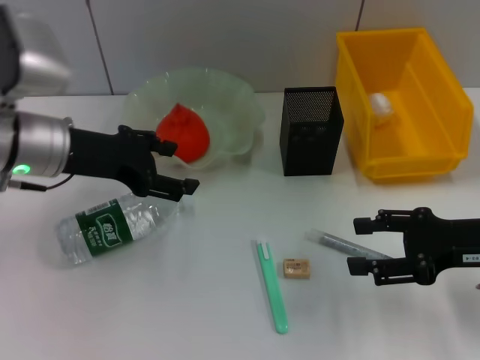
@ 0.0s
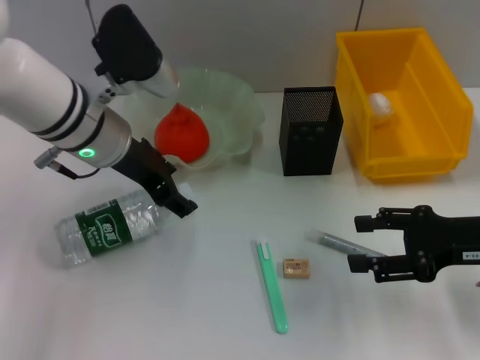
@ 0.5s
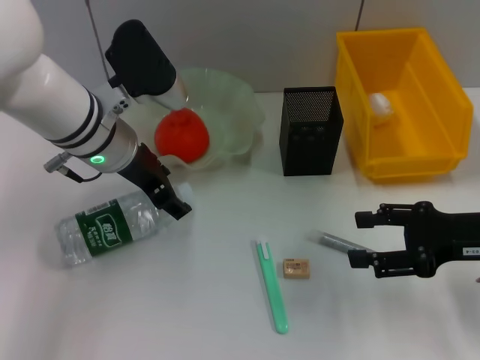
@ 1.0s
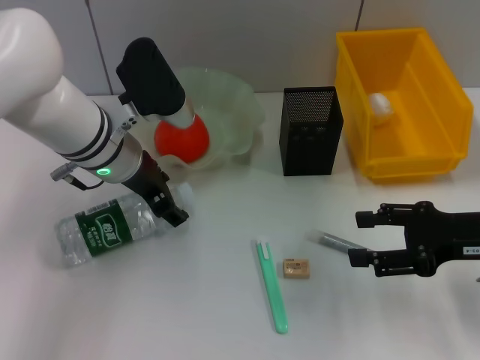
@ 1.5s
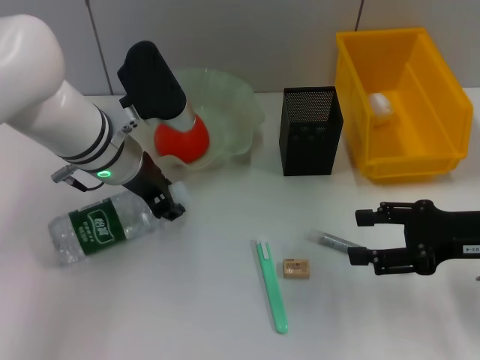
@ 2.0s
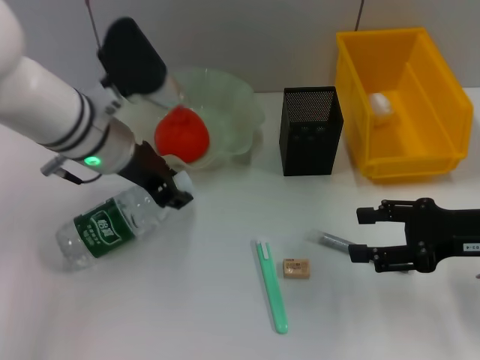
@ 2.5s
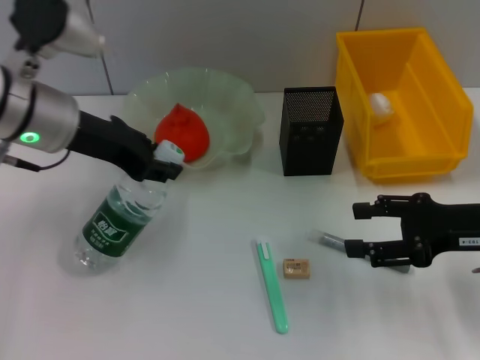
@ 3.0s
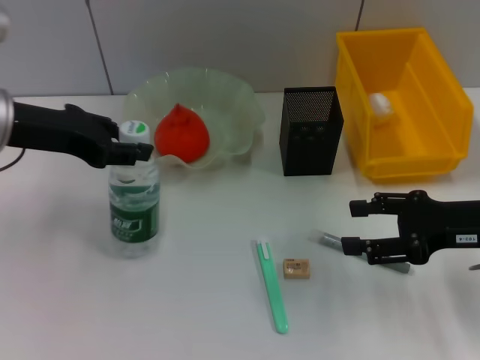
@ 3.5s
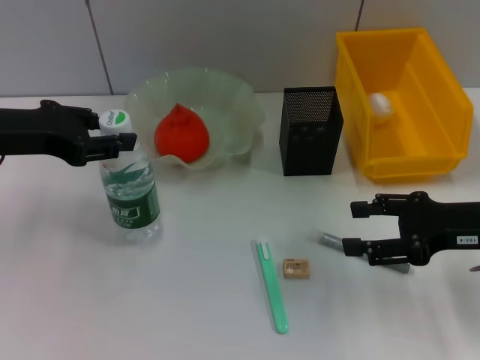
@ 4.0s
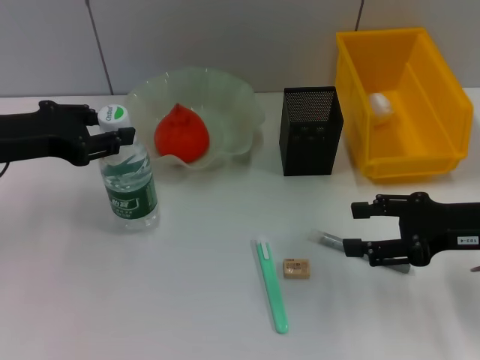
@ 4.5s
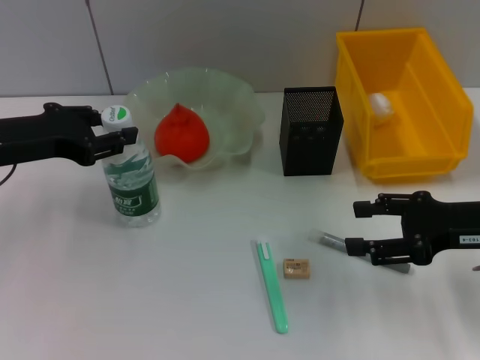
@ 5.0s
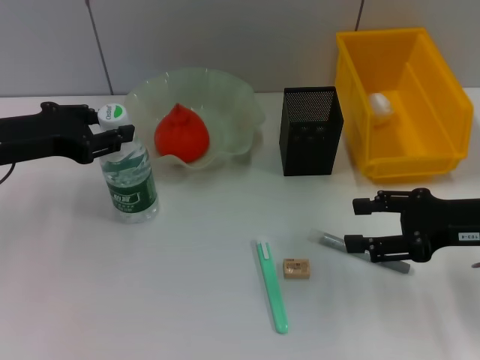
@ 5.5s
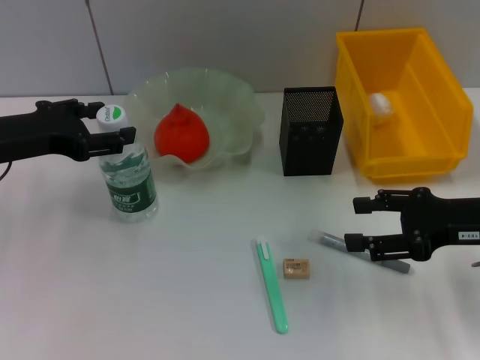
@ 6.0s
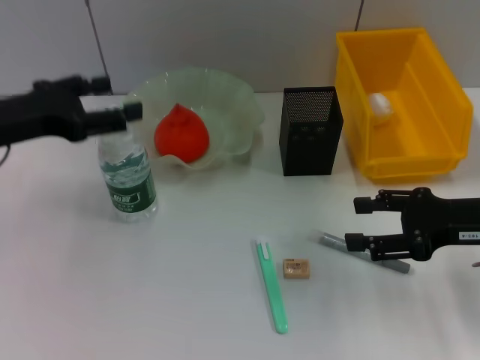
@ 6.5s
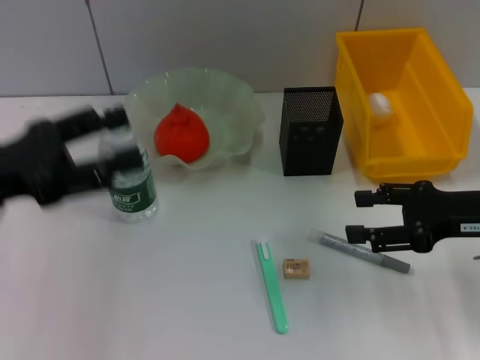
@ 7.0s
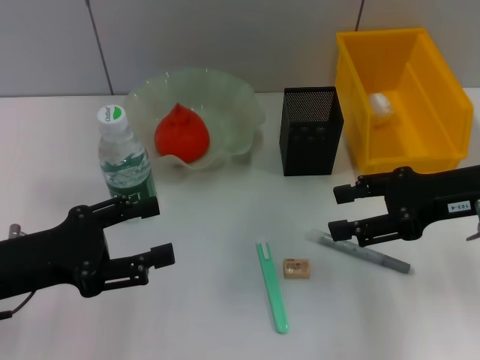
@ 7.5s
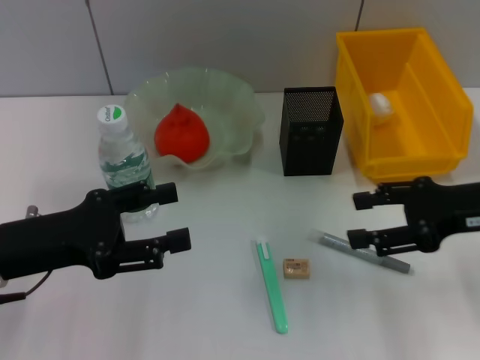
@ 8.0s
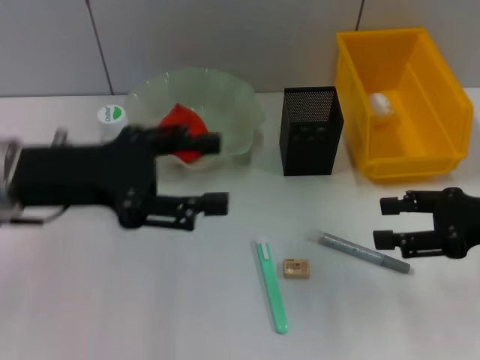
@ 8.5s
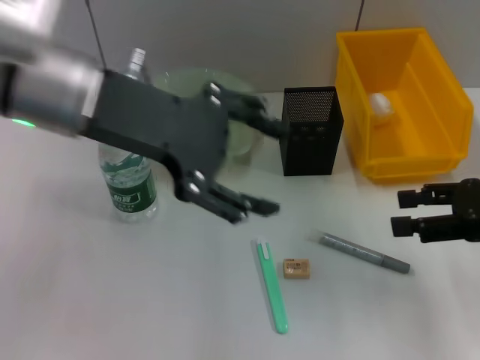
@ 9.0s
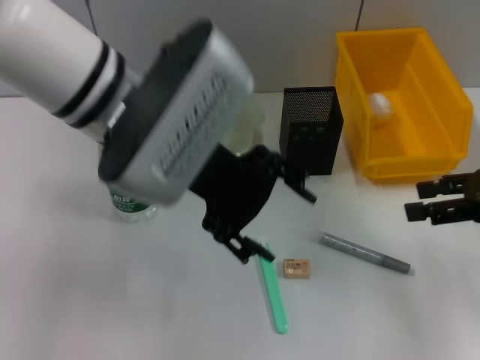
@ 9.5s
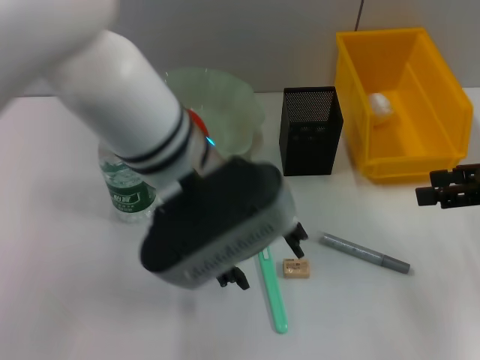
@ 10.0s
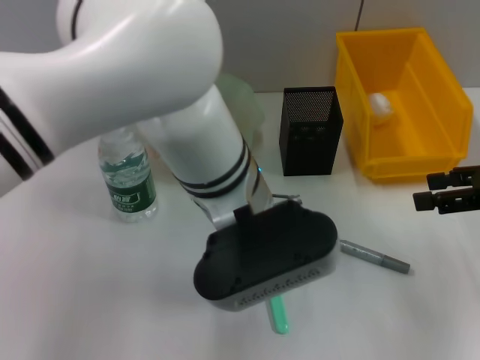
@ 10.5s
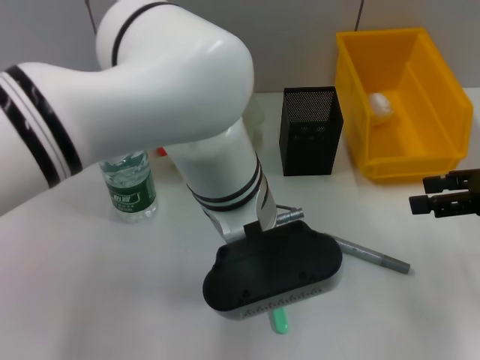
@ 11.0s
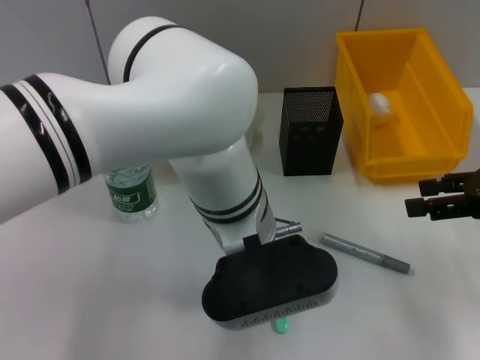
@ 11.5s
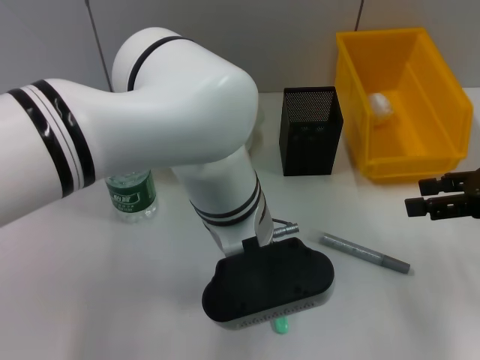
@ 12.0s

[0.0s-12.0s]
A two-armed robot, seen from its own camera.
Step, 0.0s to 2.0s: Grab the water bottle with the left hand.
Step, 2.5s to 6.5s: Place the water bottle on the table with the left hand.
0.0s to 2.0s: The left gripper goes about 5 cm to the right.
2.0s to 4.0s: The left gripper travels to the left, upward and backward by some 15 cm.
4.0s to 6.0s: The grippers make only small movements.
6.0s to 8.0s: The left gripper goes about 10 cm backward.
8.0s to 10.0s: The right gripper travels to the right by roughly 5 cm. The left gripper is displaced to the right and upward by roughly 25 cm.
10.0s to 12.0s: The left gripper shifts roughly 10 cm downward and to the right.

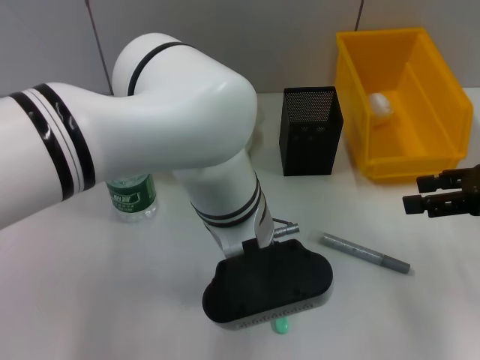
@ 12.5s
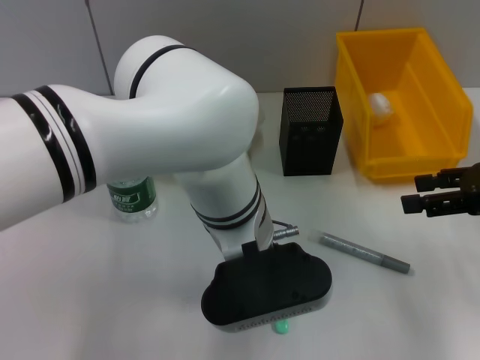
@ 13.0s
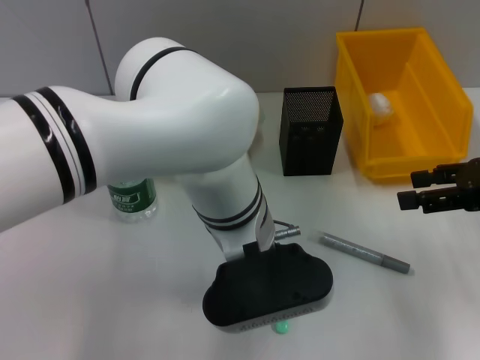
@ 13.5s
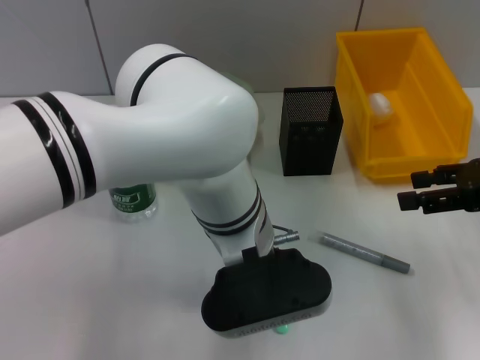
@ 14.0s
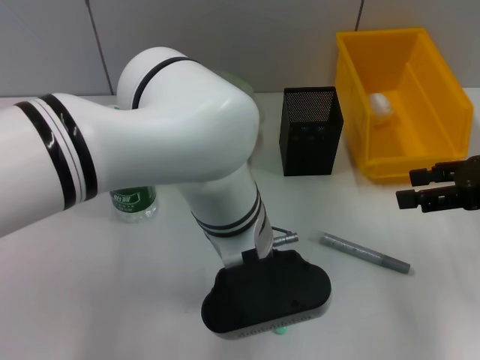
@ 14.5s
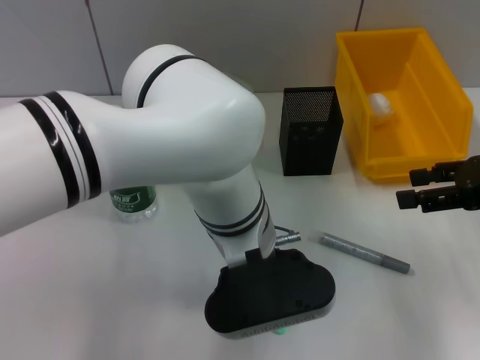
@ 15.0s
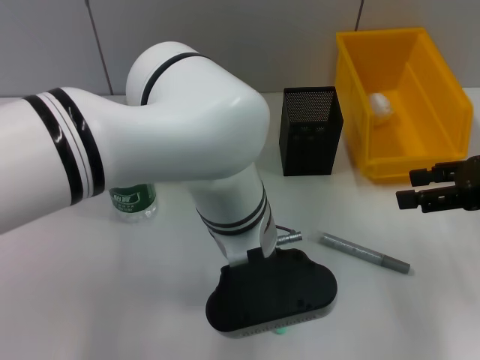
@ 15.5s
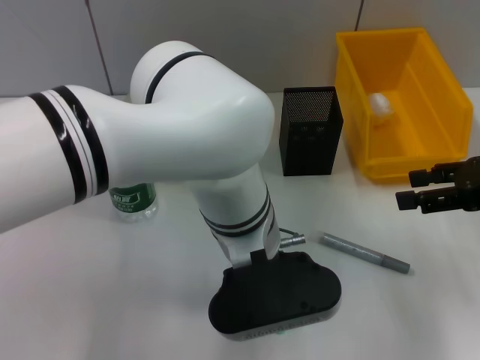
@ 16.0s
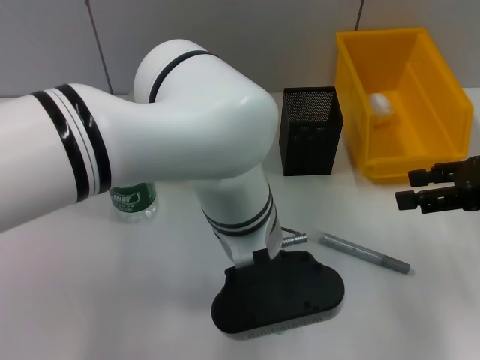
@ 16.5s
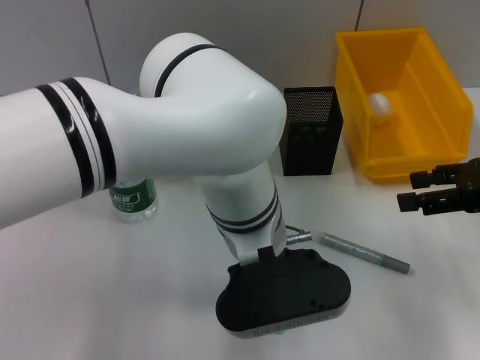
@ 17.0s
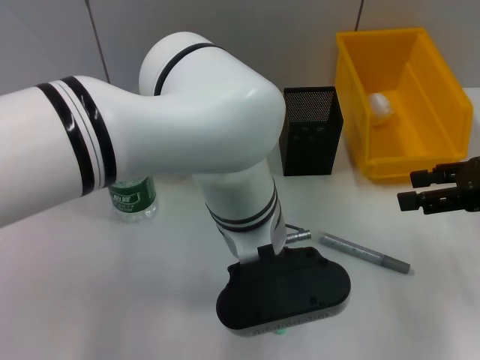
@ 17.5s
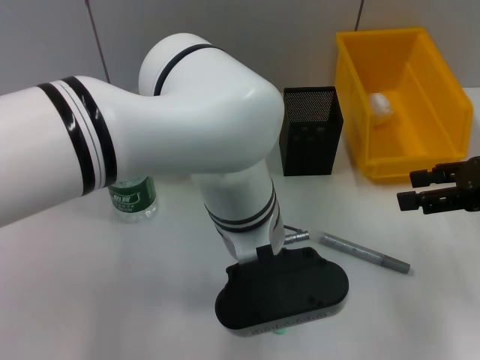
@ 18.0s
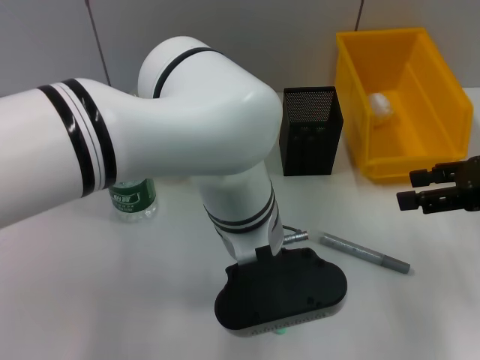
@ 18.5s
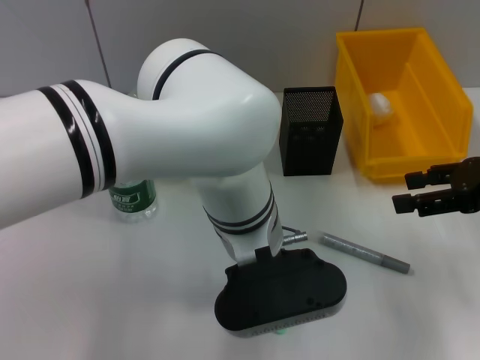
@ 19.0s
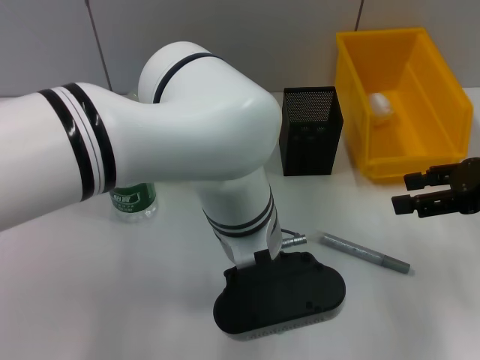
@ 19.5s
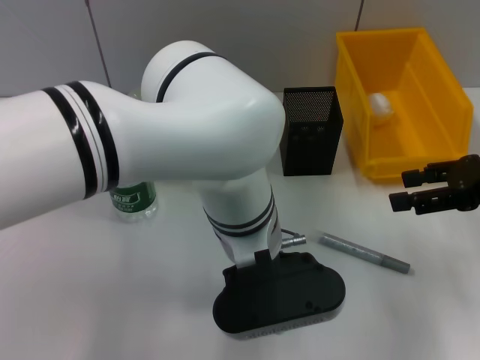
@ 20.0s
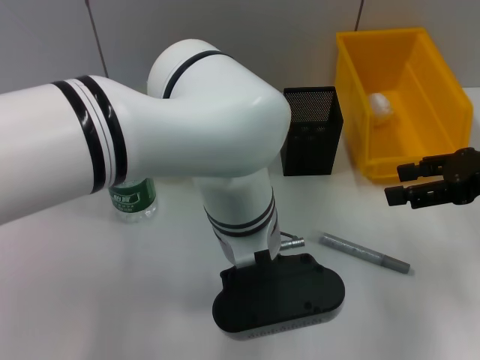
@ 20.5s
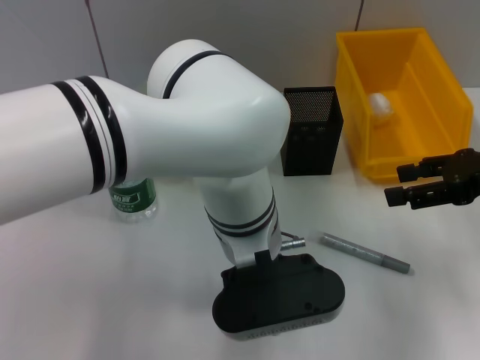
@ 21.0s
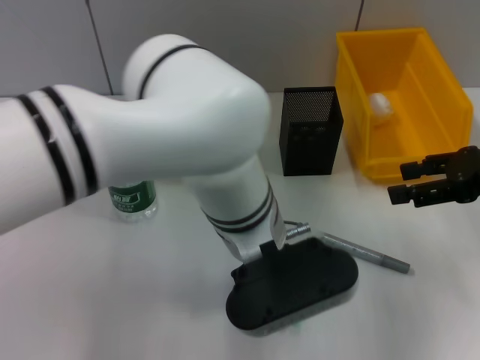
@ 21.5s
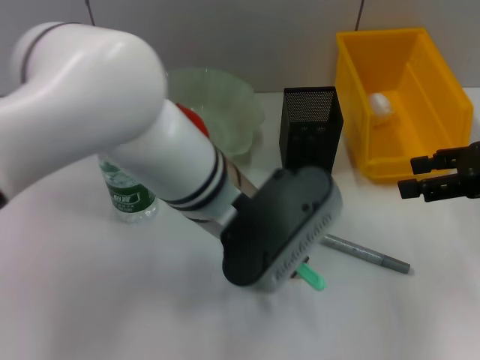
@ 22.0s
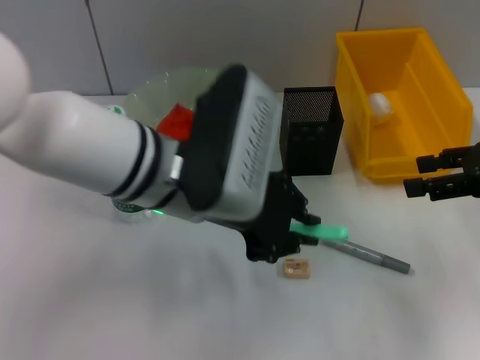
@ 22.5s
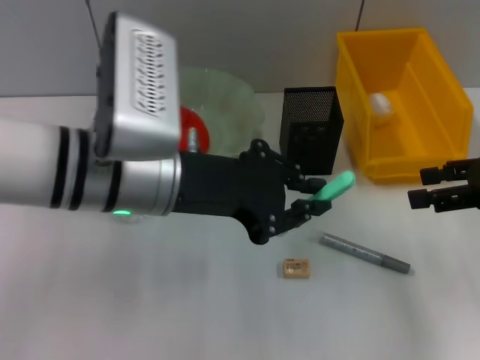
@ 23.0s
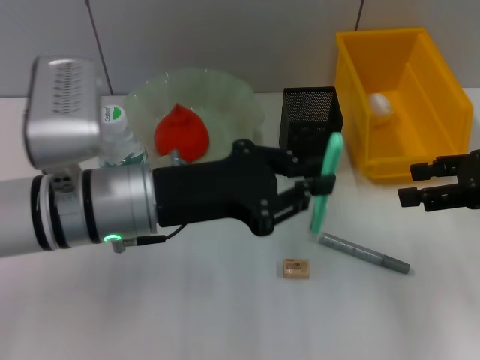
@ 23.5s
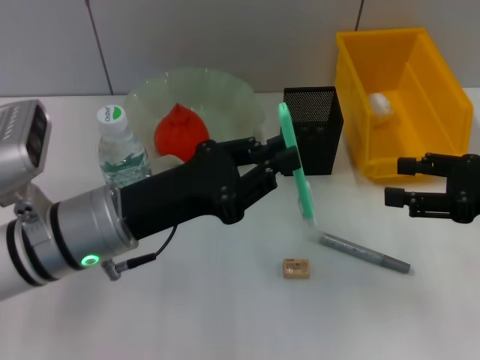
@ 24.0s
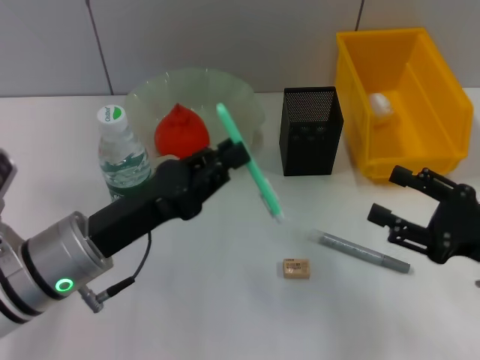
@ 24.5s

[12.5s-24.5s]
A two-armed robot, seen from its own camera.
Step, 12.5s to 20.0s: Grab the blue utility knife with the left hand.
12.5s to 16.5s: Both grippers stay put.
16.5s to 18.5s: Neither gripper changes place.
18.5s to 20.5s: The grippers make only small movements.
20.5s to 22.5s: The left gripper travels to the left and upward by roughly 10 cm.
22.5s to 24.5s: The right gripper travels downward and backward by about 15 cm. The left gripper shifts about 15 cm to the left and downward.

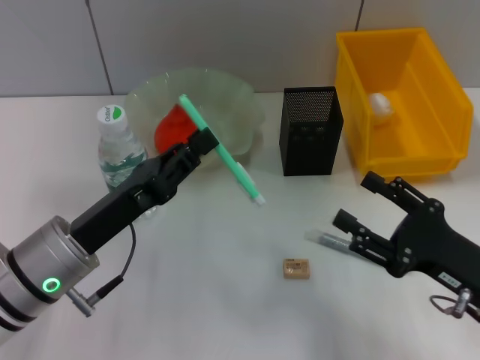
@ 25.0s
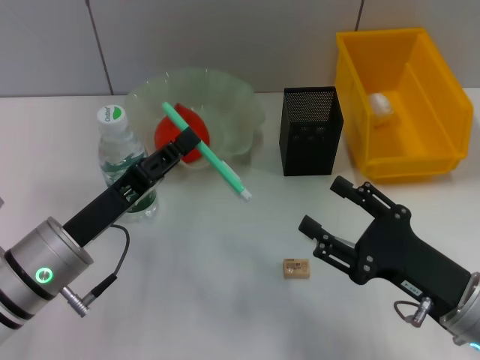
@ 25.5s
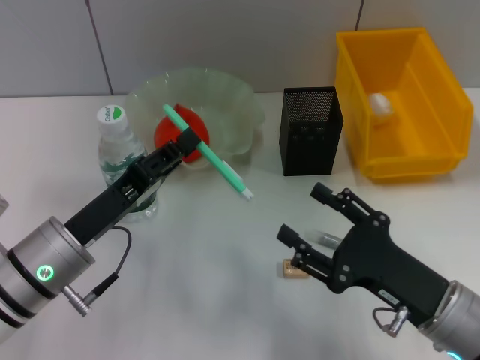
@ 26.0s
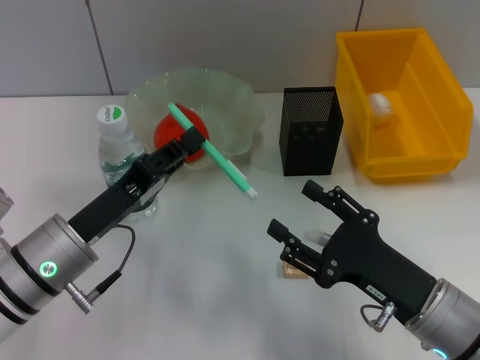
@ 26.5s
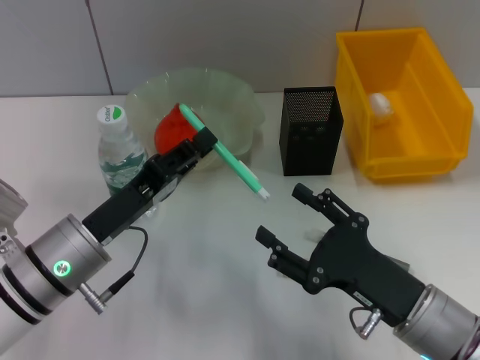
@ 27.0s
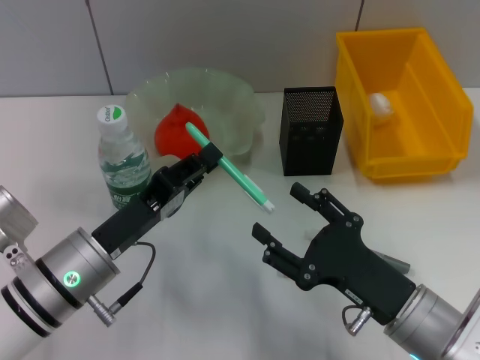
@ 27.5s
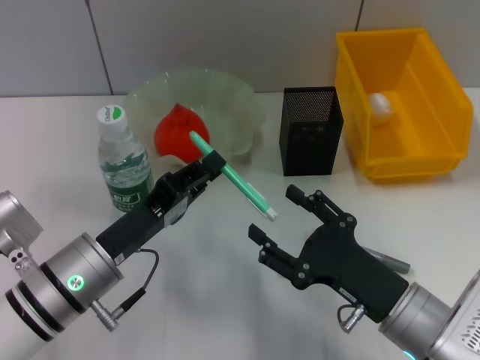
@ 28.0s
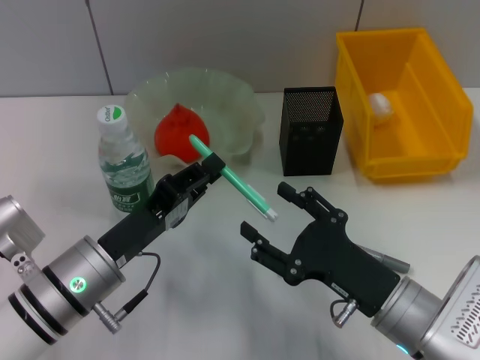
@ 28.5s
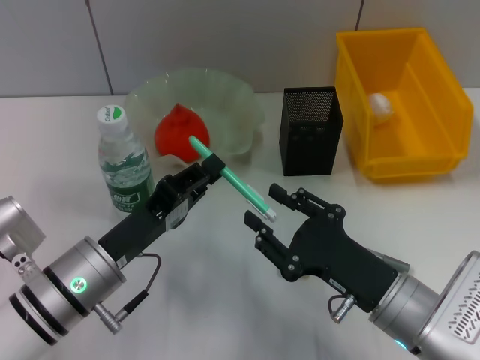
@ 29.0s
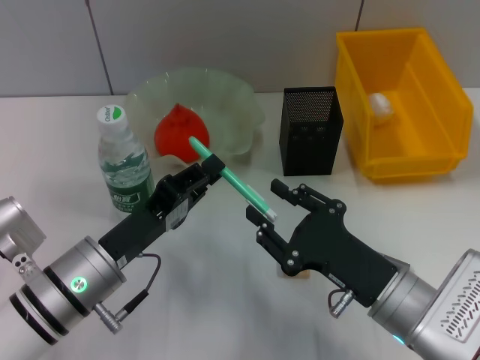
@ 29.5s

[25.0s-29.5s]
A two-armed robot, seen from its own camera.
25.0s to 27.0s: The right gripper moves to the left, about 10 cm.
27.0s to 29.5s: The right gripper closes up.
